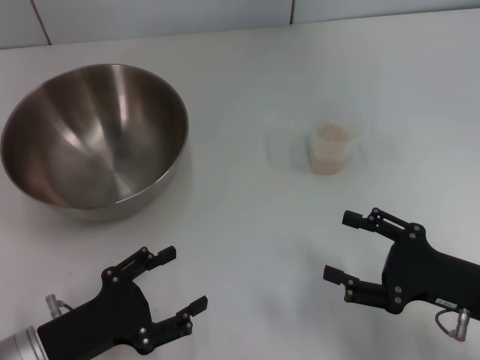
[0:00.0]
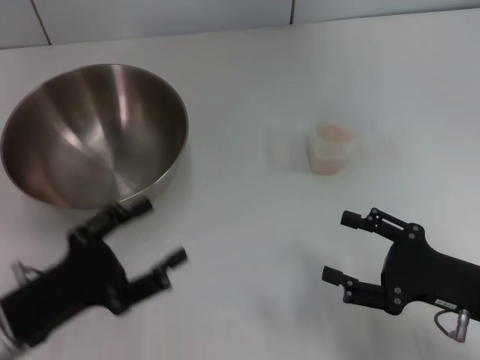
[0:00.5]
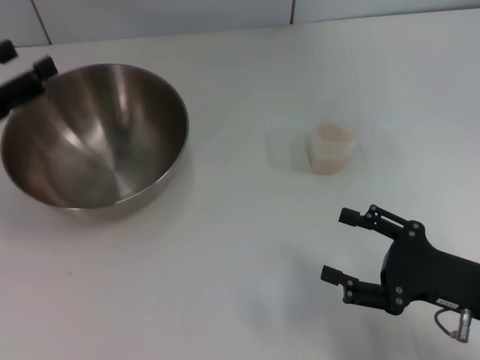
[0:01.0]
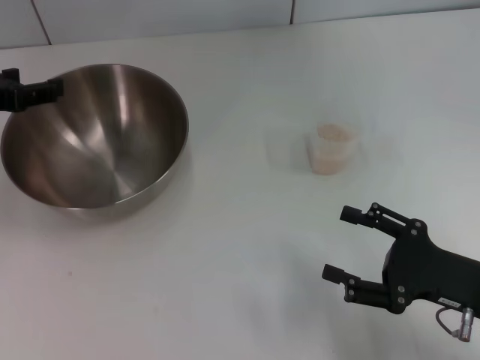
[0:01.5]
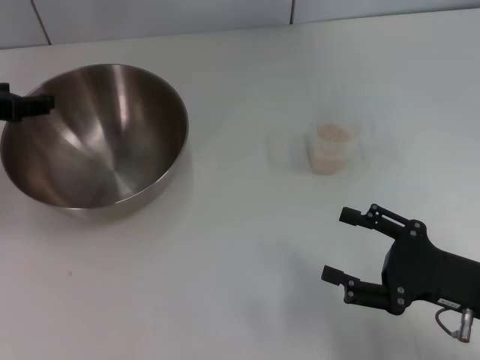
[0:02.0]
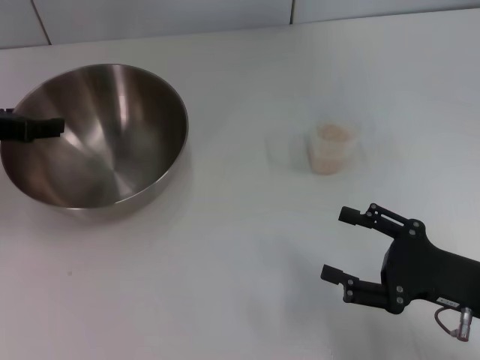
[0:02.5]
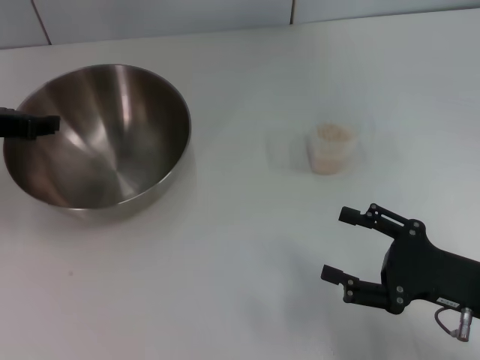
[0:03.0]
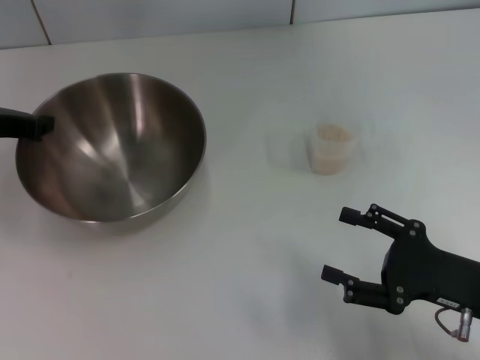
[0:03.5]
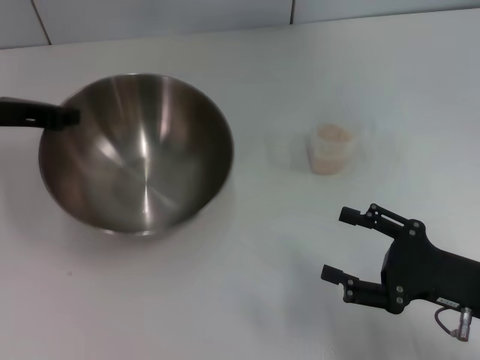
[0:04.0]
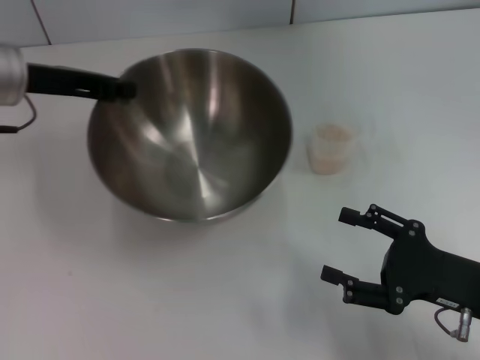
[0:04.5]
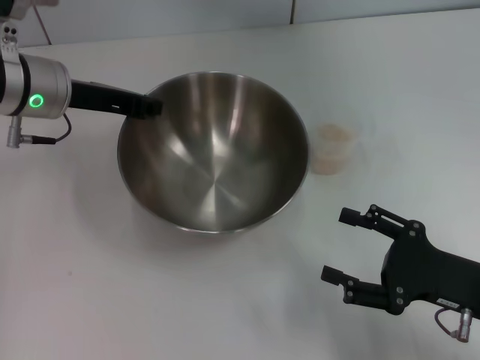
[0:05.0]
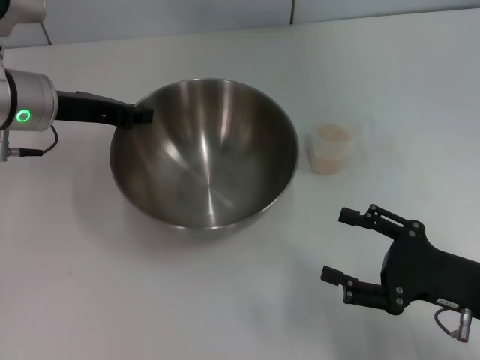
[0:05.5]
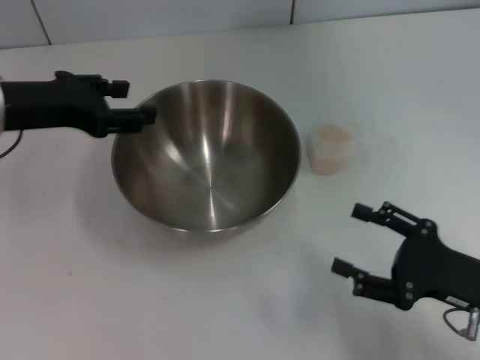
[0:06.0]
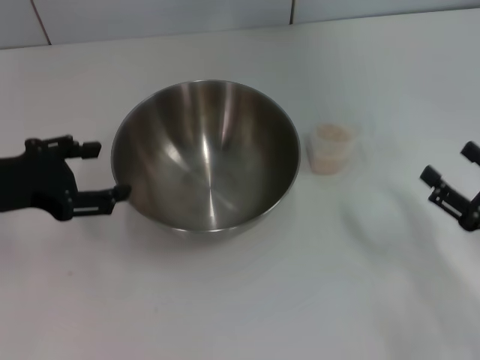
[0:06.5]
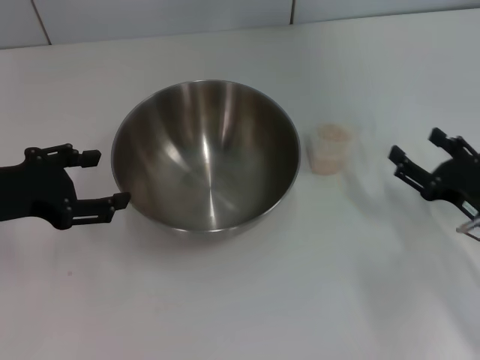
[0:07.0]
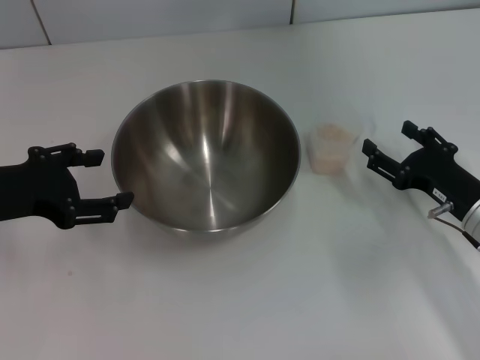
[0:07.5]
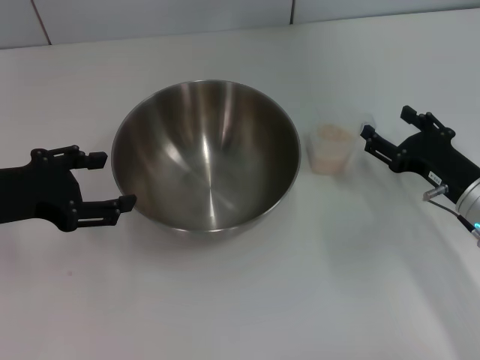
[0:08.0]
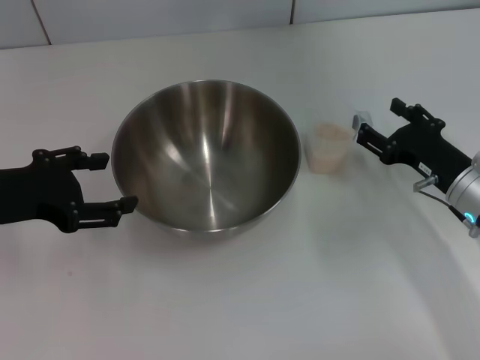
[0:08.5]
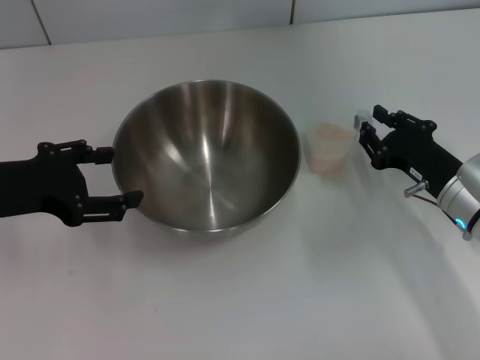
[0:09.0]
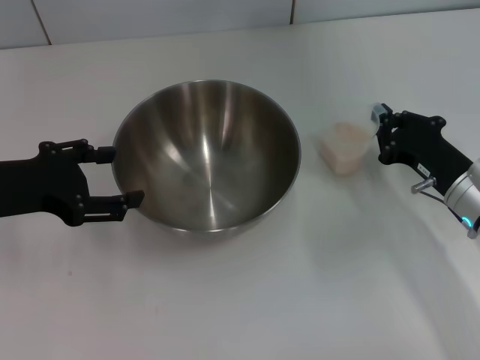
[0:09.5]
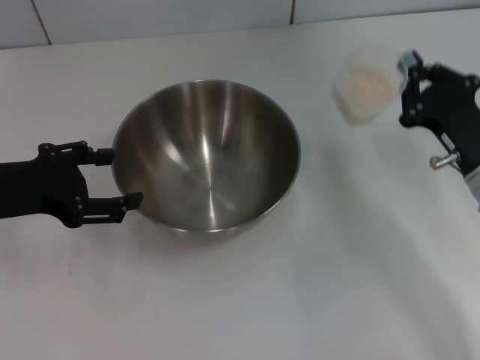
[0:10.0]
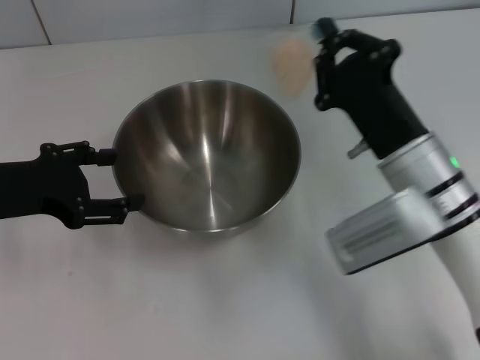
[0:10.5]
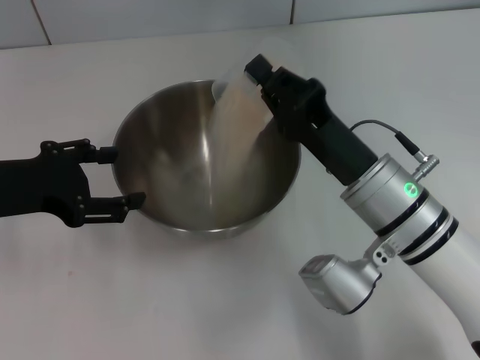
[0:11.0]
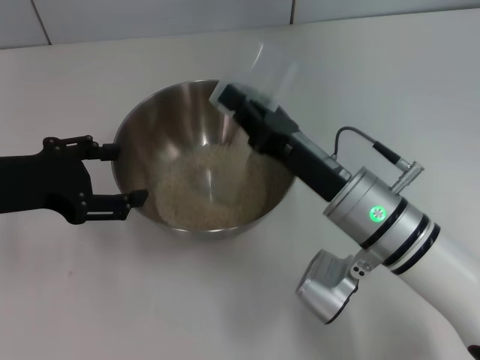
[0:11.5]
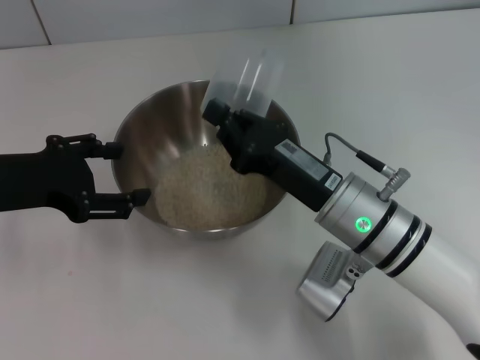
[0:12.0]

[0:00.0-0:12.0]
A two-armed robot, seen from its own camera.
Task of the whole recording: Place the bowl in the middle of the table with one hand and pour the rice from the grain cup into it with the other hand.
Step, 0:00.0 to 0:04.0: Pick up the bowl with the left gripper.
Step, 0:04.5 to 0:05.5: Place the bowl in the center of view with the left gripper.
Step, 0:06.5 to 0:09.5: Pick up the cup with rice in it with the right gripper.
0:00.0 to 0:02.0: The left gripper moves forward and upward, roughly 25 cm.
0:02.0 to 0:04.0: The left gripper closes up.
0:04.0 to 0:06.0: The left gripper opens its fingers.
0:06.0 to 0:08.0: The left gripper heads backward, covering some 5 cm, and opens up; the right gripper goes some 10 cm forward.
0:08.0 to 0:10.0: The right gripper closes.
0:10.0 to 0:12.0: The right gripper is displaced to the left by approximately 15 cm.

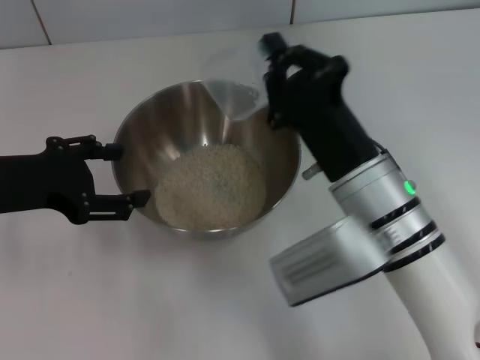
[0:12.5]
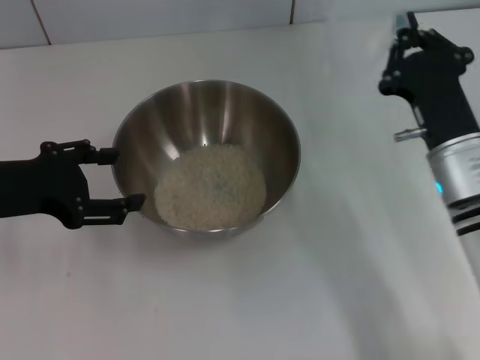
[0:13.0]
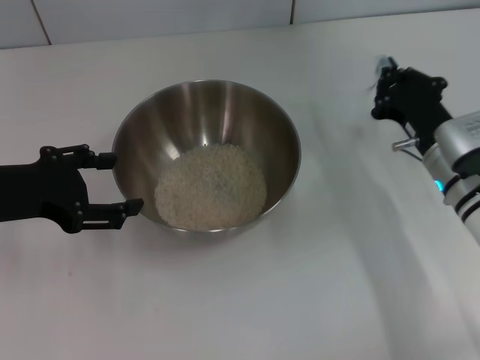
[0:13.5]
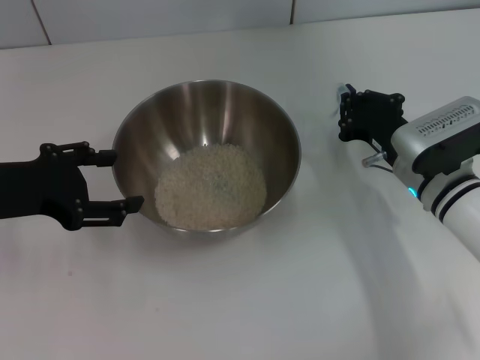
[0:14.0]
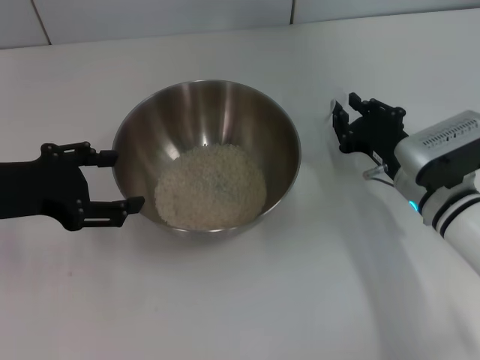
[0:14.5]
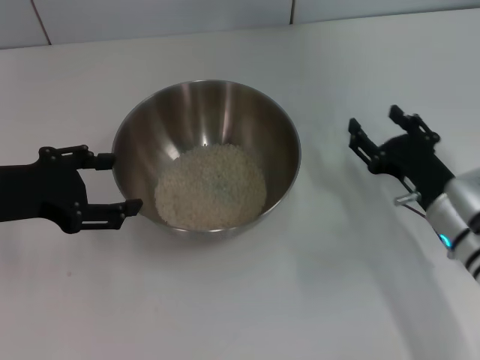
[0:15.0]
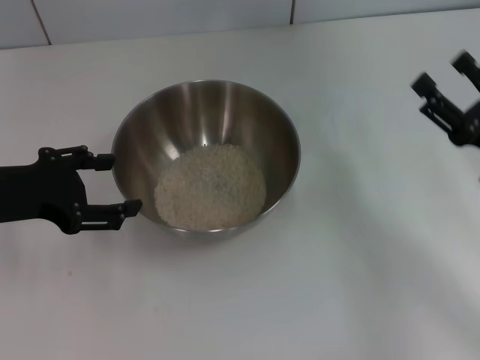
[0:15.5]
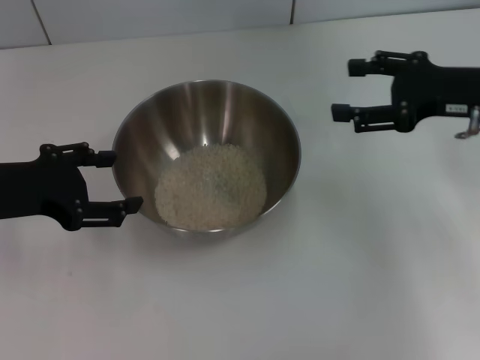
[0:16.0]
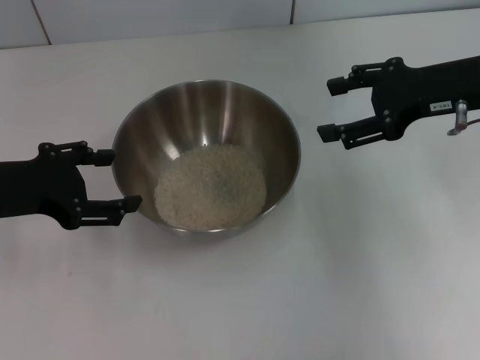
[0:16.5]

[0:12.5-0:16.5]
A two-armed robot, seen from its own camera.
Task of the whole recording: Place the bowl in the middle of the table with one hand and pour the rice from the grain cup into it with the other hand.
Step, 0:13.0 to 0:14.5: Place the cup on the table with the right gripper.
0:12.5 to 0:14.5: The right gripper goes approximately 15 cm to the right, downward and forward.
0:14.5 to 0:16.5: The right gripper heads upward, covering some 15 cm, and opens up.
